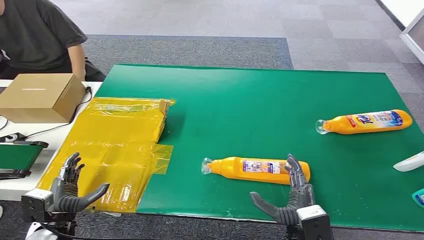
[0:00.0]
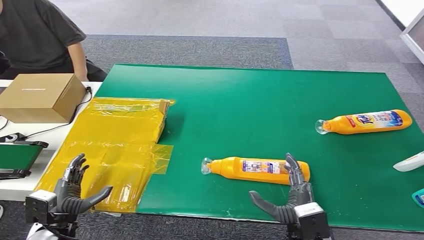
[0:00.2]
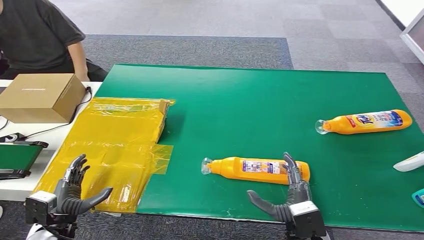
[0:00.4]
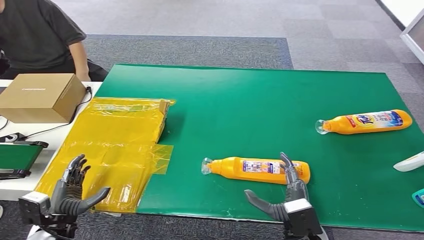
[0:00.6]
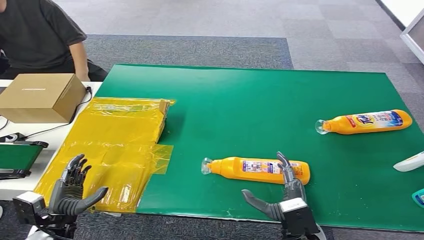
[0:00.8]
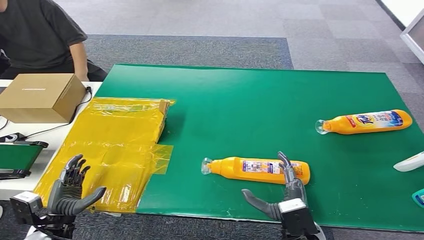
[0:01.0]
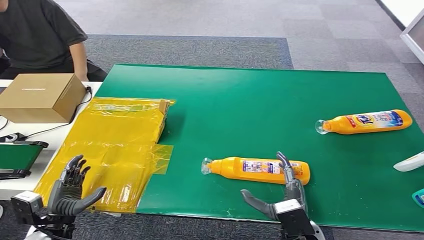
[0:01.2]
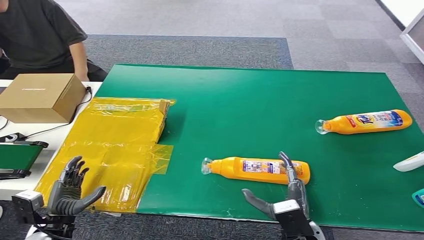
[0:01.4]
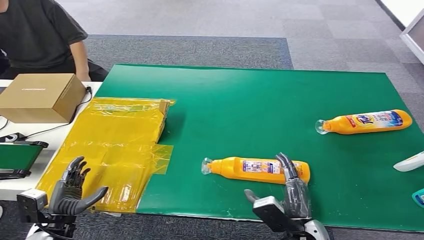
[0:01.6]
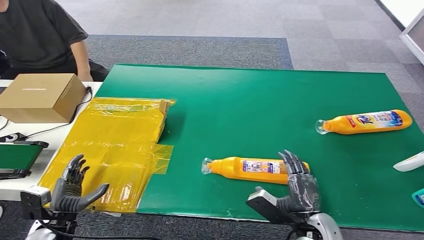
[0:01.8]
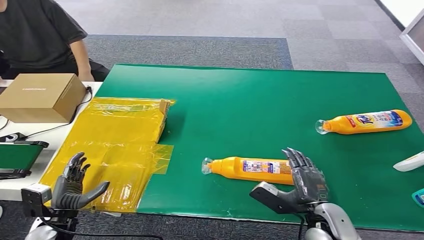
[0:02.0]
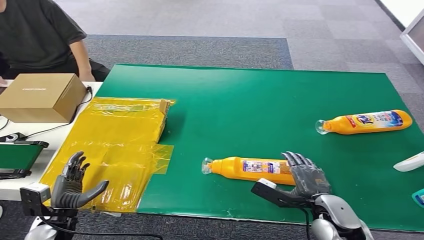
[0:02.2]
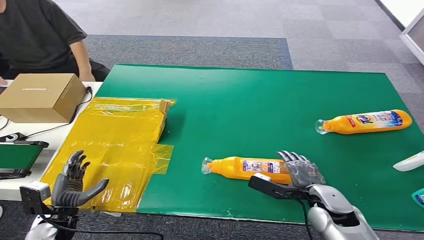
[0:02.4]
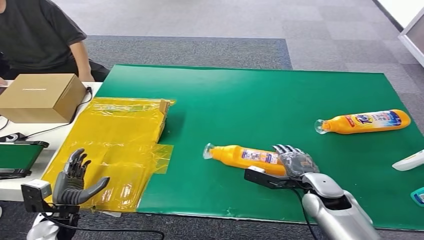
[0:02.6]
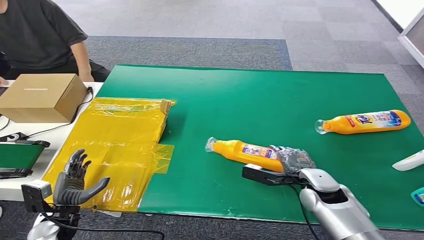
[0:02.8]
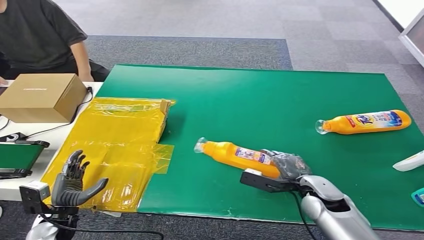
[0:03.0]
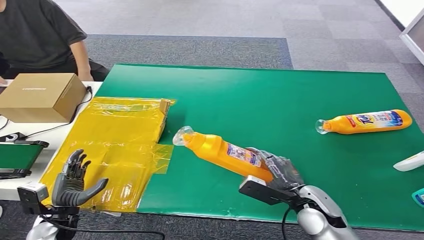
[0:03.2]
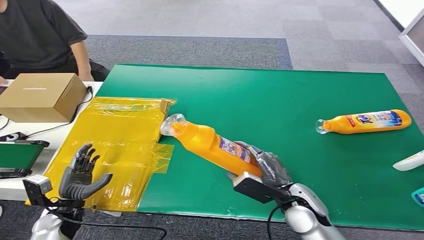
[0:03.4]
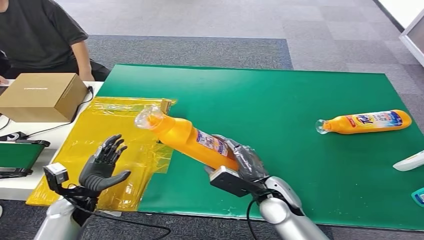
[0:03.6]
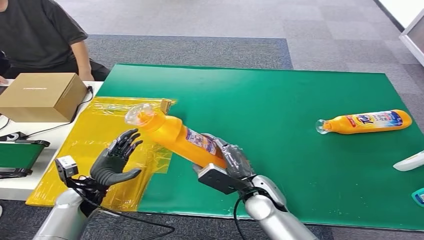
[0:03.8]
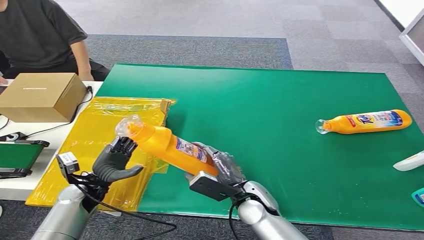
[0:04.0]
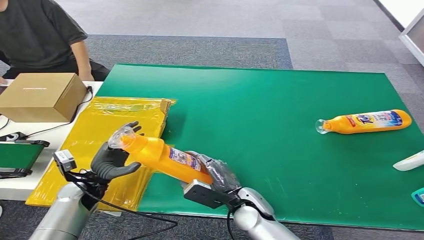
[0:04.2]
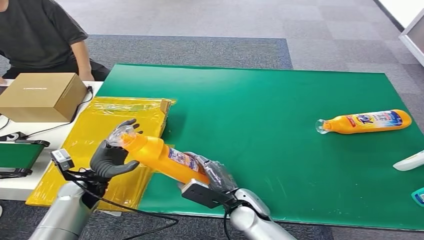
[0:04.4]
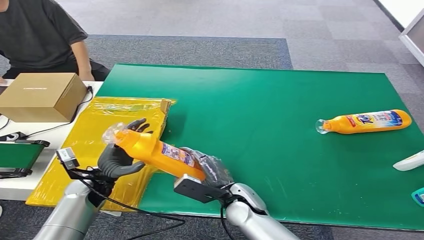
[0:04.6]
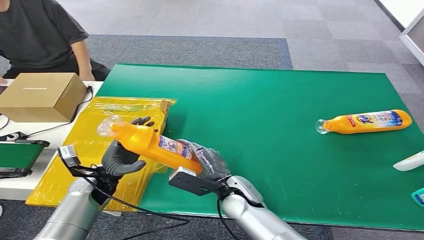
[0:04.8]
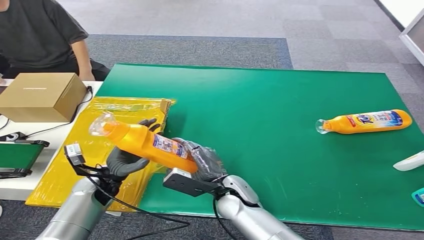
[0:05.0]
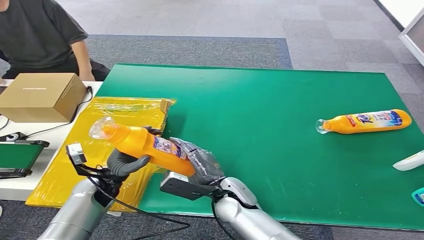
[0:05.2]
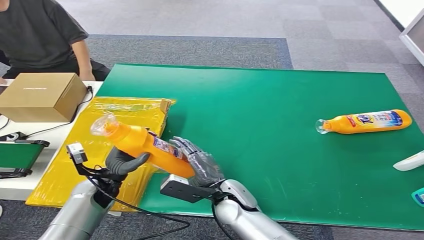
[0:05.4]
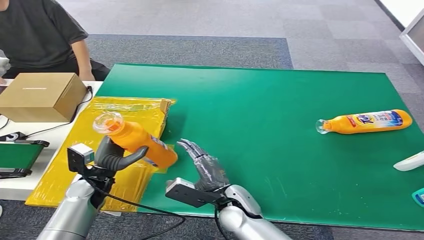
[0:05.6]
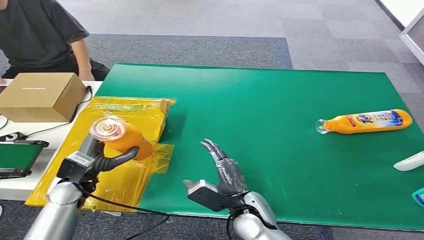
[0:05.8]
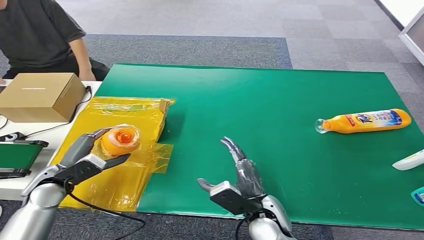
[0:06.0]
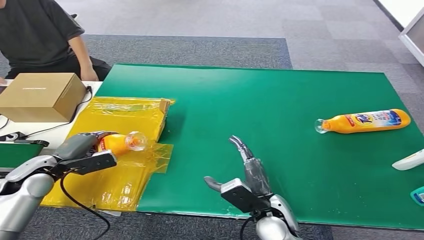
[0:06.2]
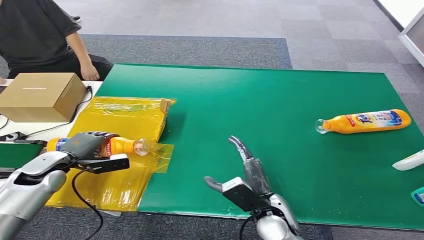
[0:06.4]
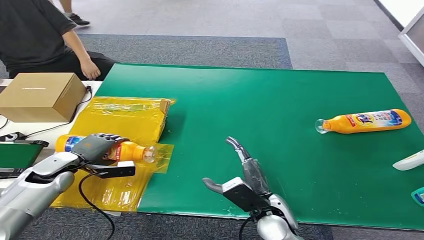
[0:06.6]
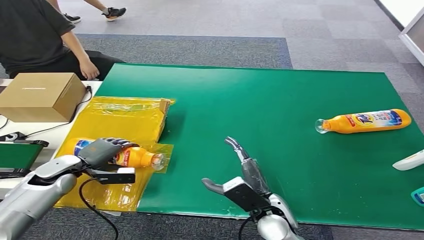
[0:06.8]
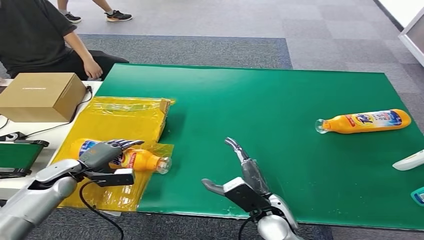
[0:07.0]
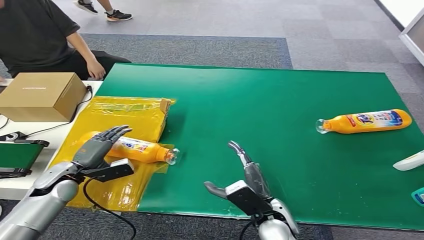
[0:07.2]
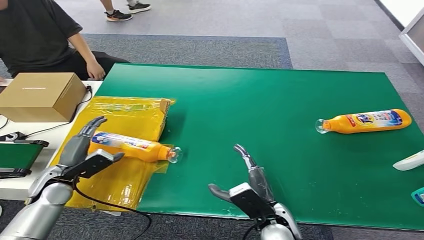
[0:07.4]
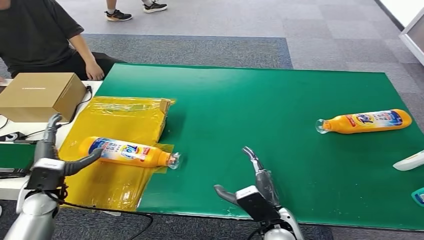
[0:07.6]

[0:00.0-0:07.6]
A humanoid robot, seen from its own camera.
Step, 0:00.0 to 0:03.6: Pick up the bottle from the table.
Step, 0:03.8 to 0:07.6: Turn the bottle to the front side.
0:01.6 to 0:03.0: The right hand heads forward, covering approximately 10 cm.
0:04.6 to 0:06.0: The right hand moves roughly 5 cm, while the left hand heads to the left and upward, covering some 10 cm.
